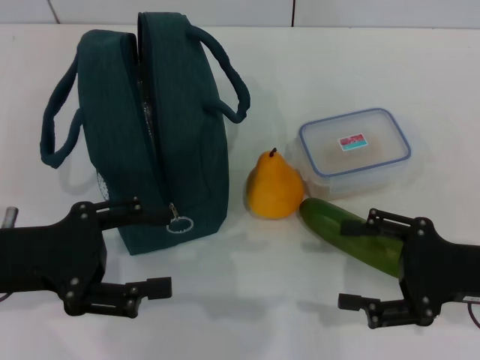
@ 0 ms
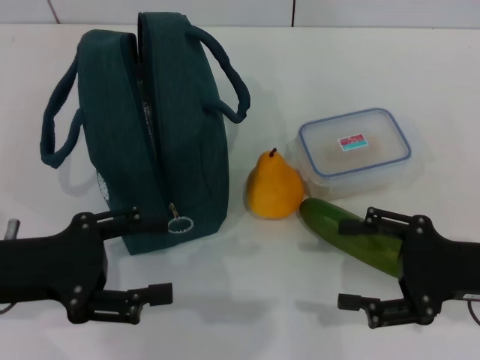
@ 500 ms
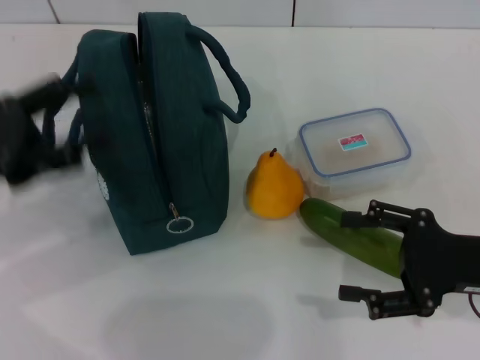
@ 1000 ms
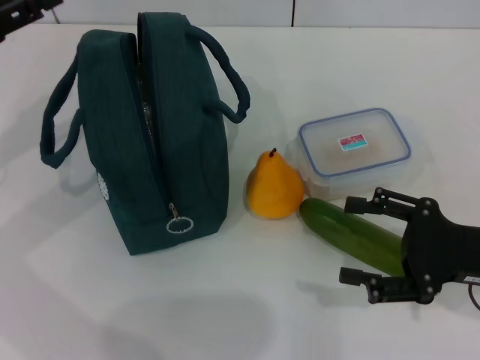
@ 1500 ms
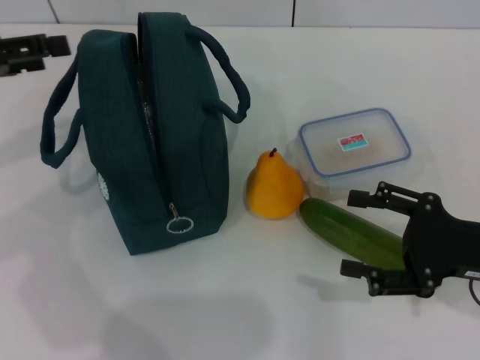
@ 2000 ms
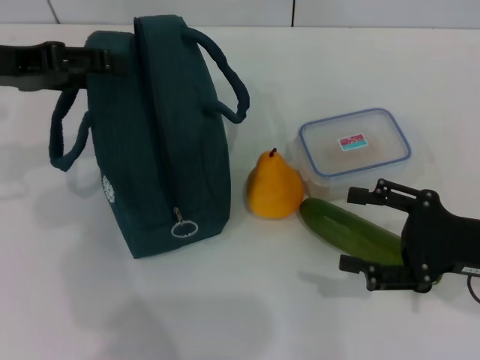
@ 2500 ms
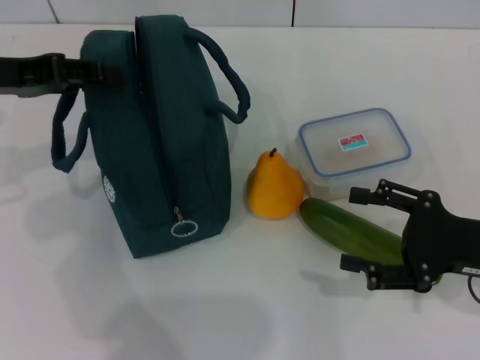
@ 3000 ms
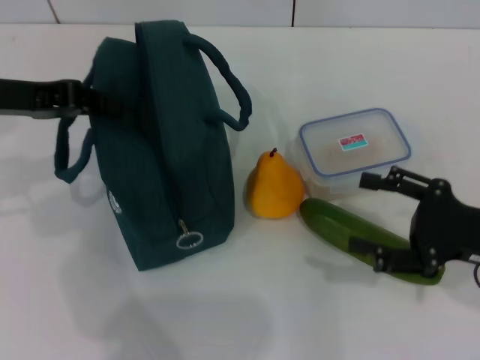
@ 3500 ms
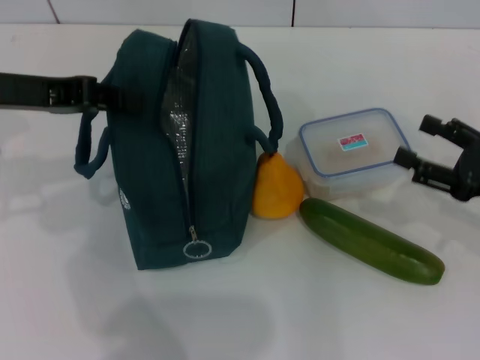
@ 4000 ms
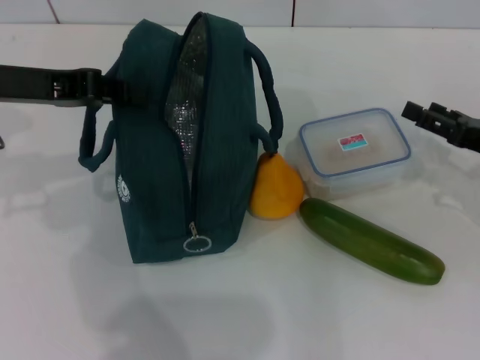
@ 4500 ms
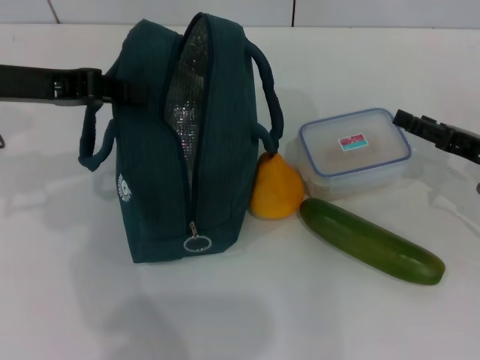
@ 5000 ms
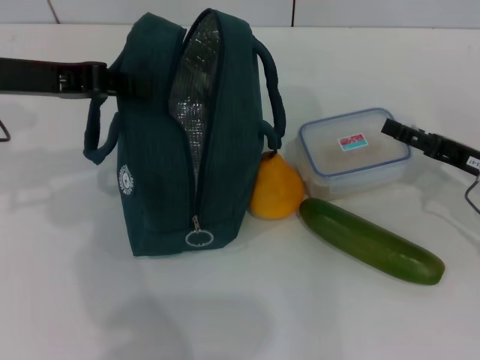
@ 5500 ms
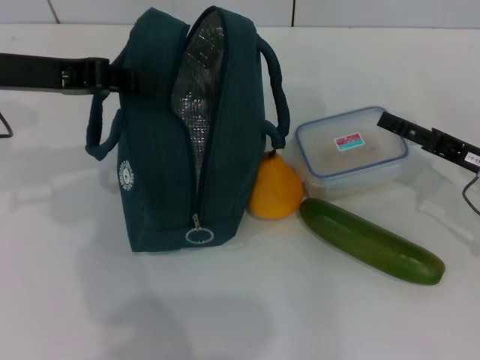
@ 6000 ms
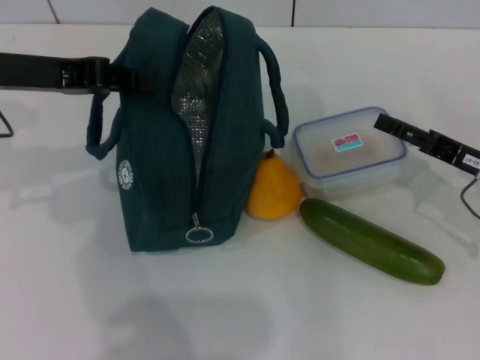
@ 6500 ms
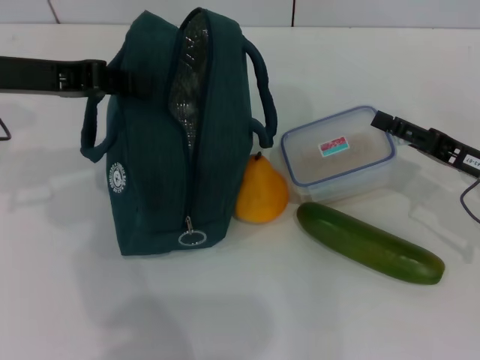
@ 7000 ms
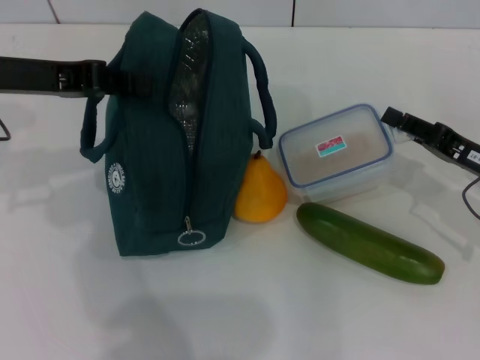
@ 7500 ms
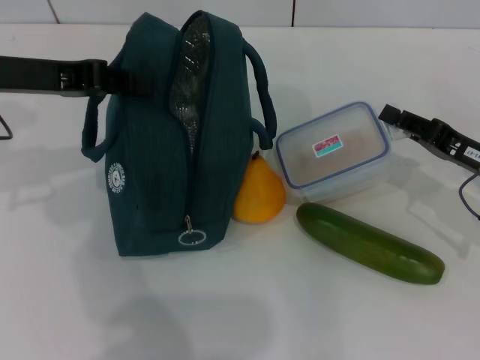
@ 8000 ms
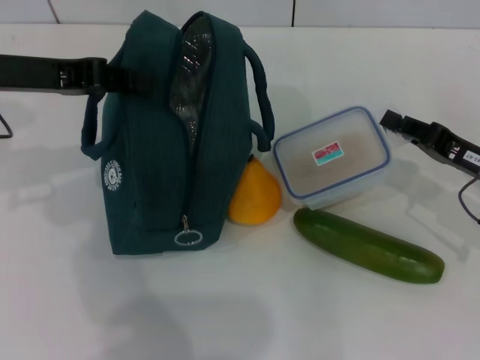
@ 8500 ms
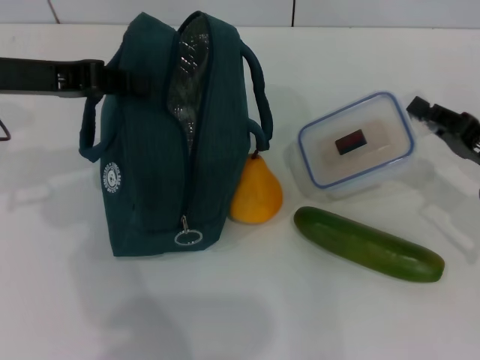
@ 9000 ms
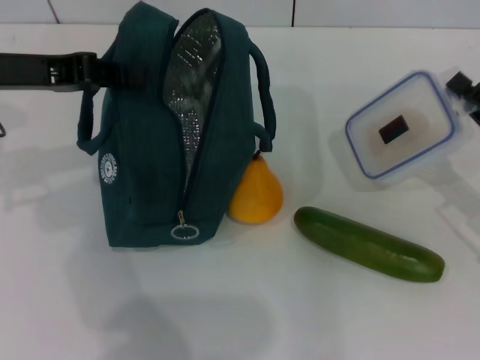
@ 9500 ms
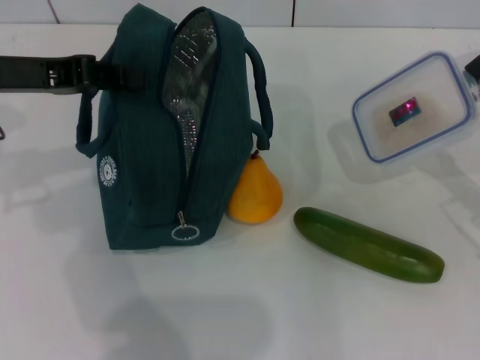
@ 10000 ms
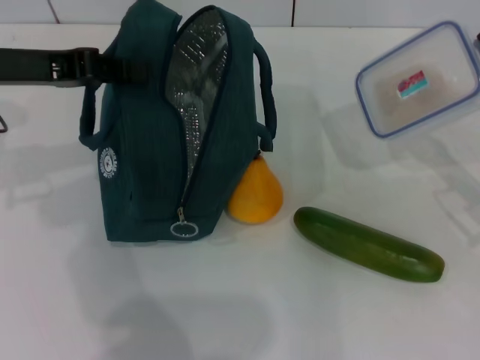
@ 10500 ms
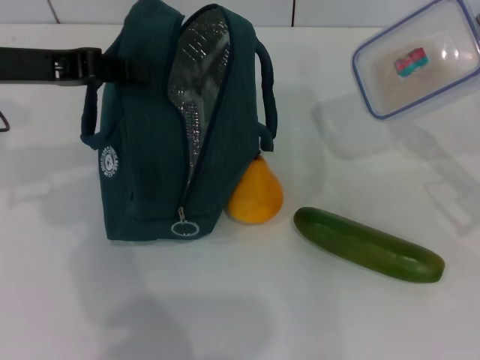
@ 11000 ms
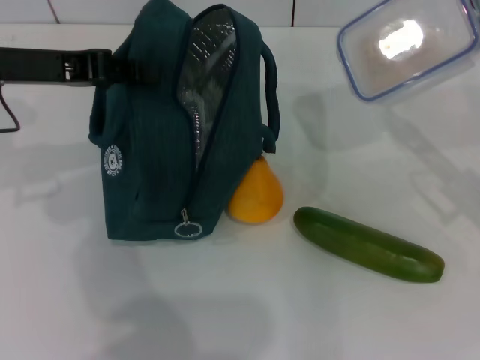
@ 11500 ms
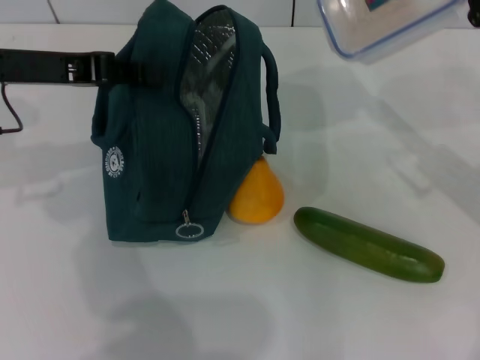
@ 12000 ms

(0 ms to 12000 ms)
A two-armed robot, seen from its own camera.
Step, 0 ms - 3500 ms: Hold the lunch bag with your left hand.
Step, 4000 ms - 8500 ms: Pick up the lunch box with your right hand.
0 ms - 2000 ms: The left gripper heads forward, upward and to the left, covering some 15 cm.
2000 ms - 4000 ms: The left gripper heads to the right, covering roughly 5 cm, and closes its fingers, while the right gripper ends up some 5 cm from where it was.
4000 ms - 6000 ms: The right gripper moves some 5 cm.
6000 ms - 8000 ms: The right gripper closes.
10000 ms - 12000 ms: The right gripper goes some 10 cm upward and forward.

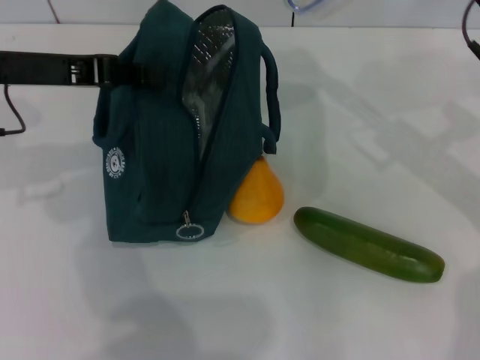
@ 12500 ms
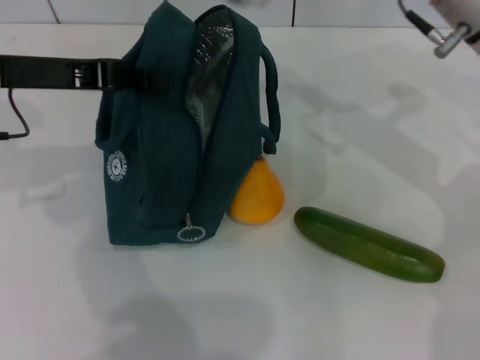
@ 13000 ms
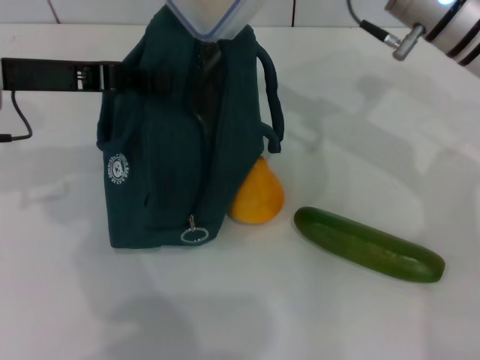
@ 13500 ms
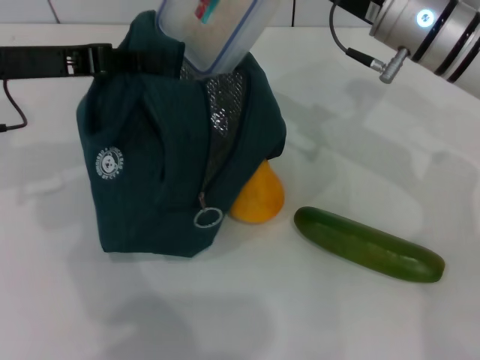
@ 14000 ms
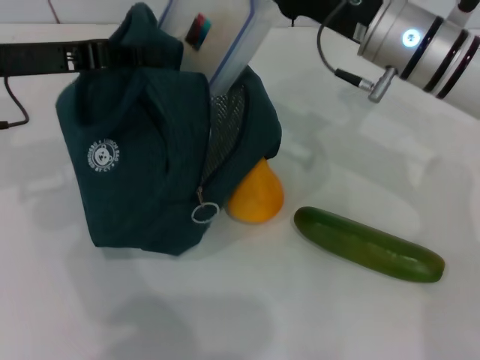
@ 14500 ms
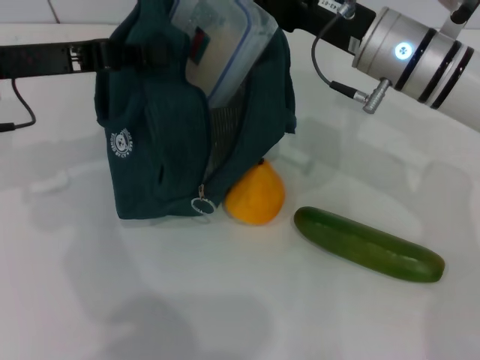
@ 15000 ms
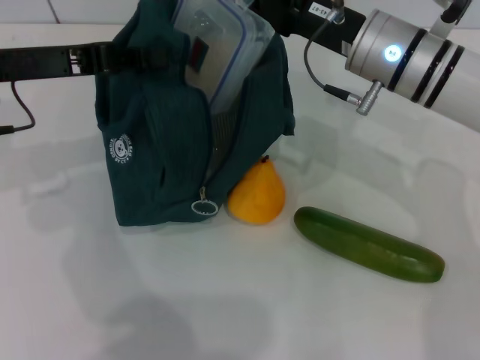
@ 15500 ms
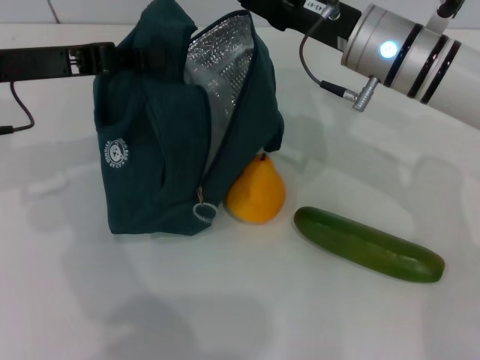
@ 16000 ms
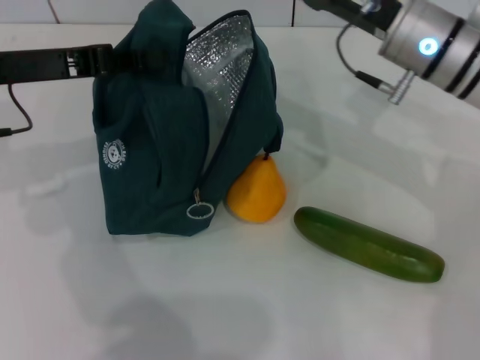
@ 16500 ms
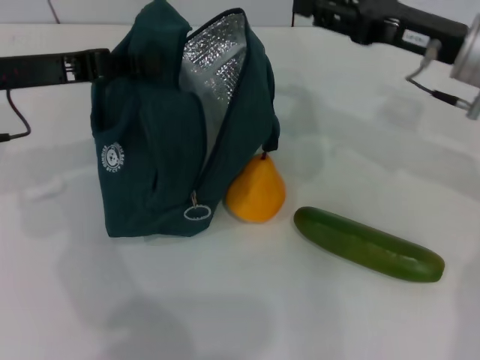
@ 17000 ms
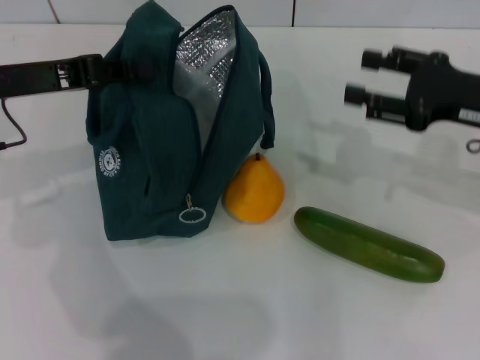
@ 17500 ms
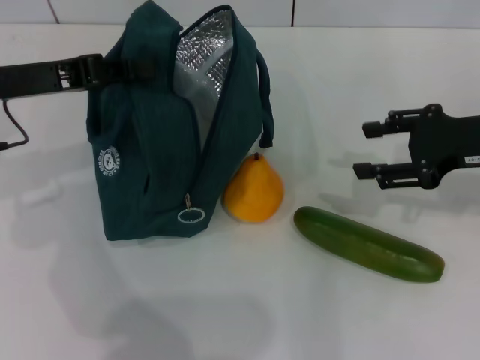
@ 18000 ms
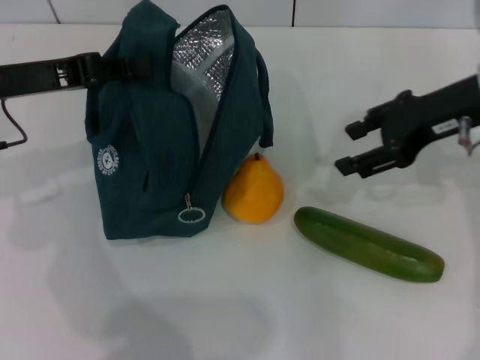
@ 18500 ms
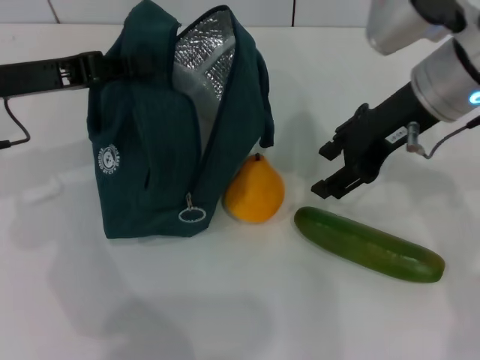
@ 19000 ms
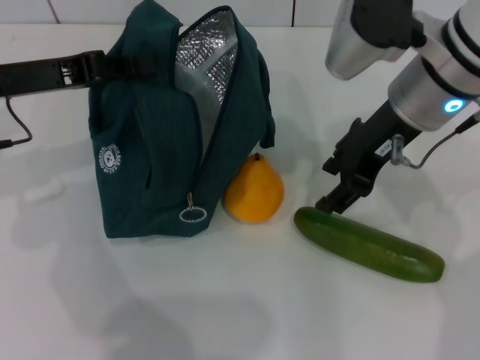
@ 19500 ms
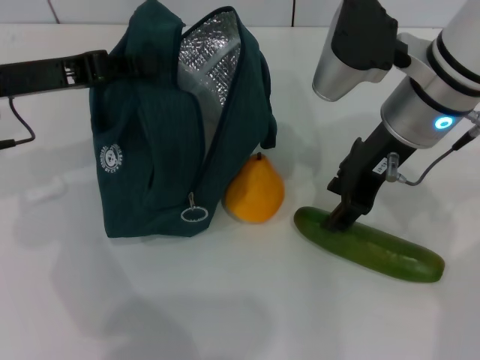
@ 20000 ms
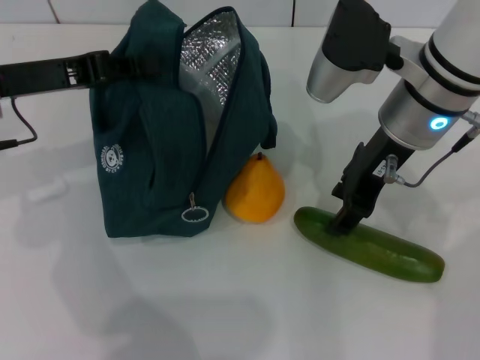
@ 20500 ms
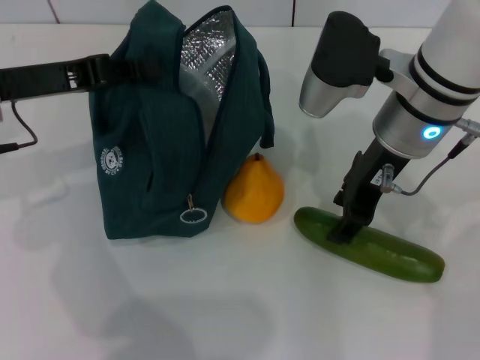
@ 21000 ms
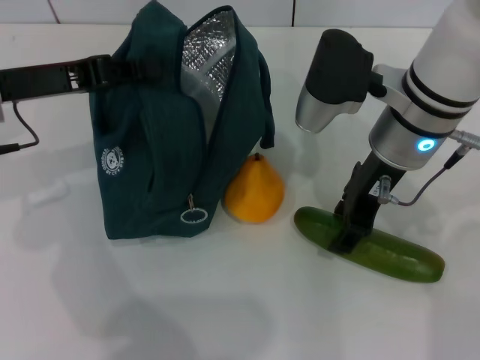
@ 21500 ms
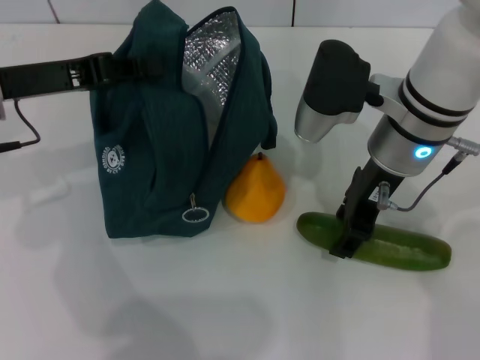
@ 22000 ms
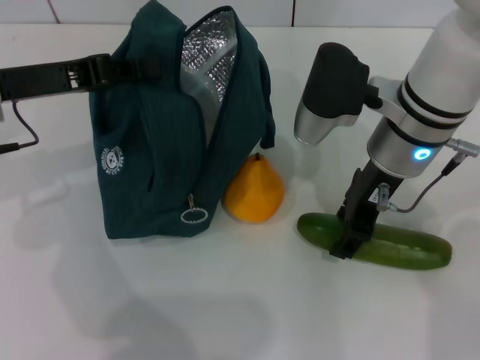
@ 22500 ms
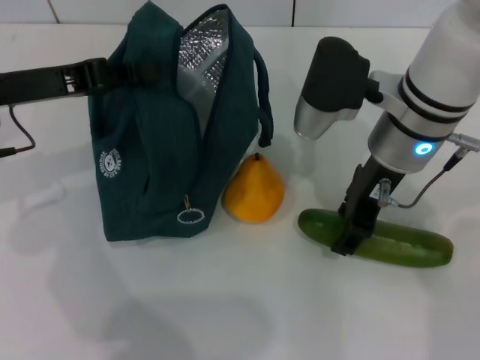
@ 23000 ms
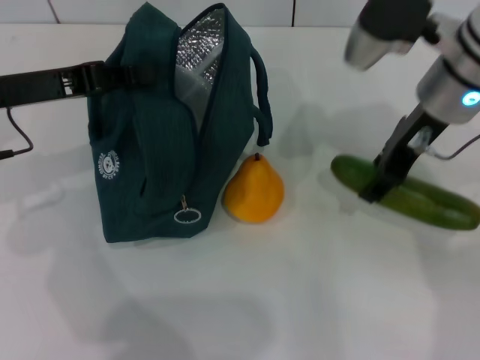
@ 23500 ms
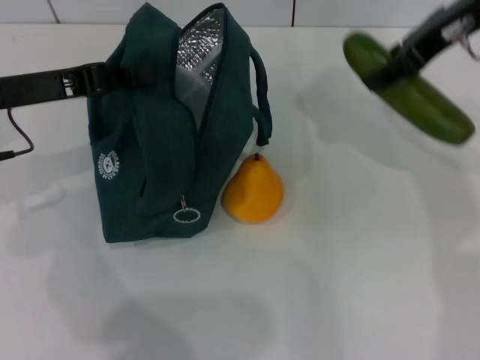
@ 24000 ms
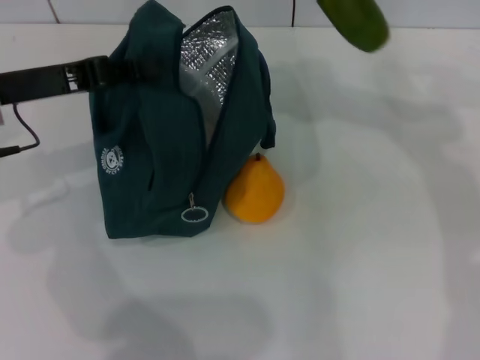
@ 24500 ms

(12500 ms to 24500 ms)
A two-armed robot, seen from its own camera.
Step, 12500 ms - 16000 ms: Place the lunch box into the lunch bag with your right hand.
Step, 16500 ms - 22500 ms: Pick up the cucumber with your right hand.
12500 ms - 14500 ms: The right gripper heads to the left, covering roughly 10 cm.
14500 ms - 16500 ms: The right gripper opens up.
16500 ms - 18500 ms: The right gripper is displaced to the right by some 5 cm.
18500 ms - 20500 ms: The right gripper moves to the left, about 10 cm.
20500 ms - 22500 ms: The grippers make only small movements.
22500 ms - 24500 ms: The right gripper heads upward, covering roughly 15 cm.

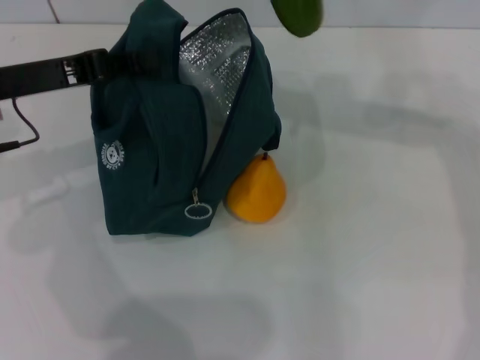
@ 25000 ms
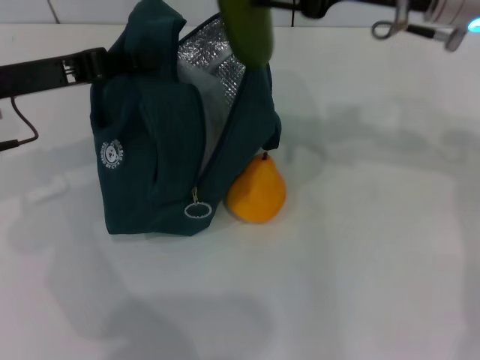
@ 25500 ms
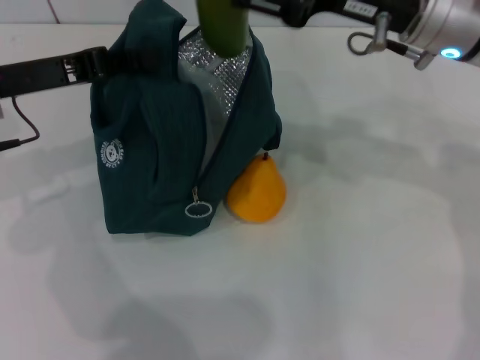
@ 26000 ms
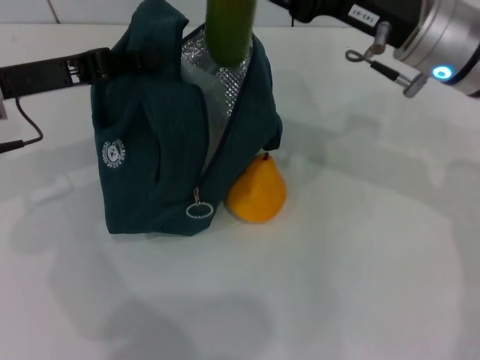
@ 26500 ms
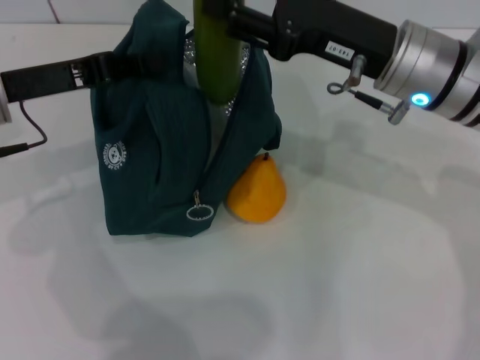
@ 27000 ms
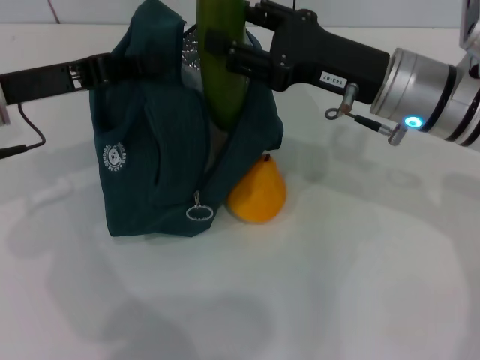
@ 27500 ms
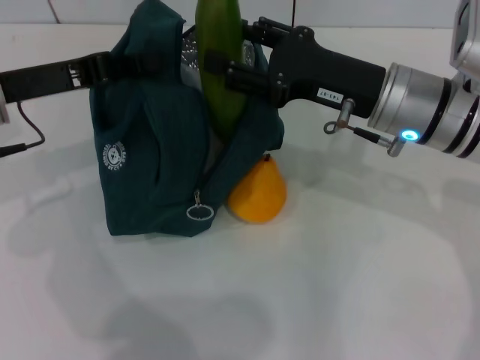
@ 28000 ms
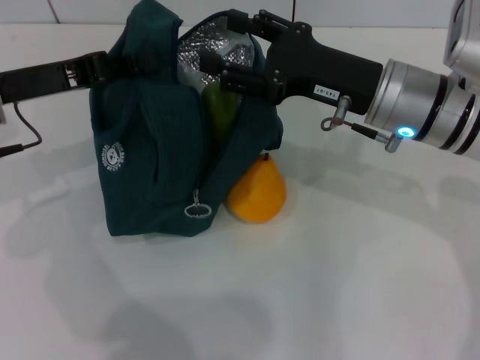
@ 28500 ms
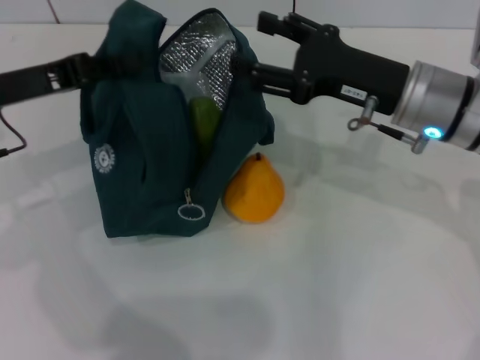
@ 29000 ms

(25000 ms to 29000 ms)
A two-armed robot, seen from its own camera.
Step, 25000 ms - 28500 ms: Put the cucumber into the lunch bag with your right hand.
25000 ms - 27000 ms: The right gripper goes approximately 15 cm downward.
27000 ms - 29000 ms: The grippers move only a little.
